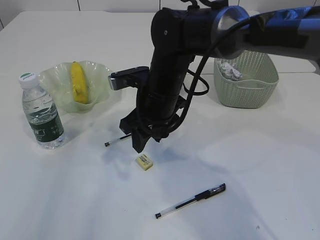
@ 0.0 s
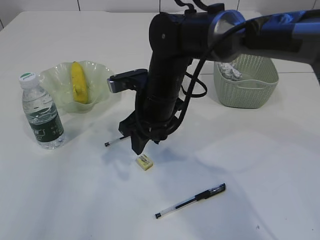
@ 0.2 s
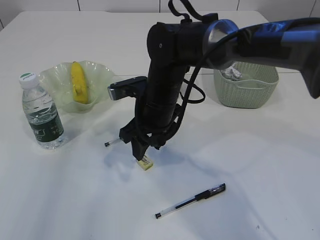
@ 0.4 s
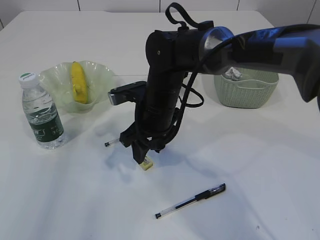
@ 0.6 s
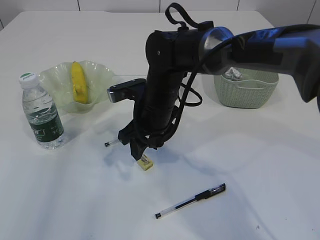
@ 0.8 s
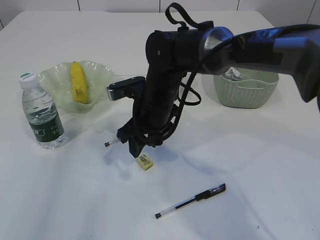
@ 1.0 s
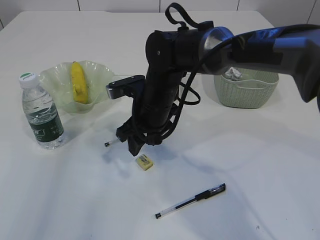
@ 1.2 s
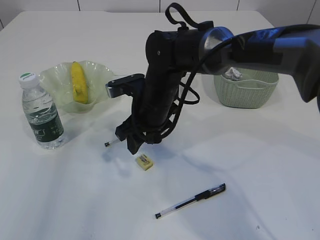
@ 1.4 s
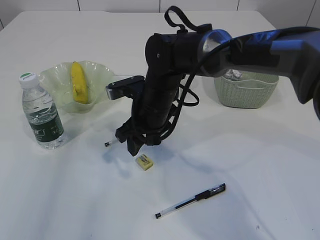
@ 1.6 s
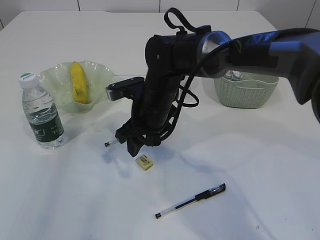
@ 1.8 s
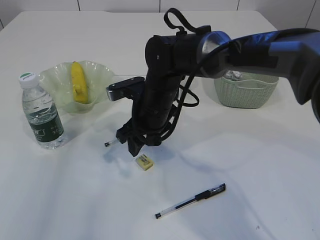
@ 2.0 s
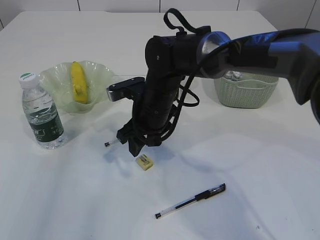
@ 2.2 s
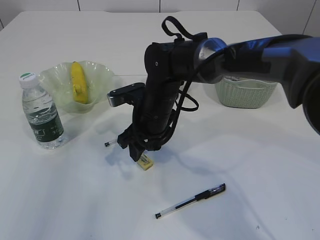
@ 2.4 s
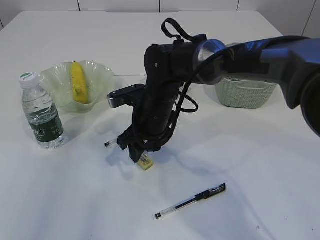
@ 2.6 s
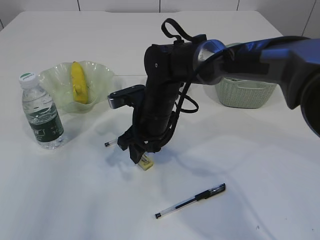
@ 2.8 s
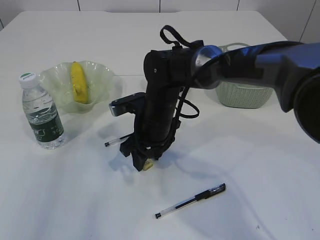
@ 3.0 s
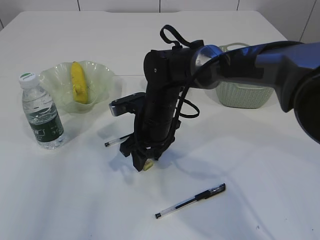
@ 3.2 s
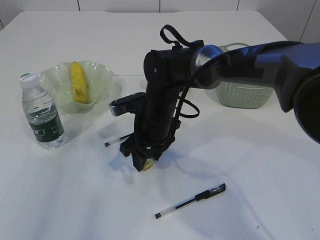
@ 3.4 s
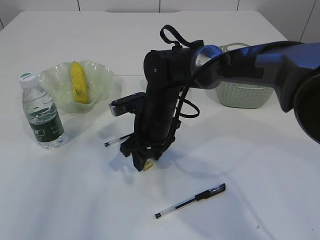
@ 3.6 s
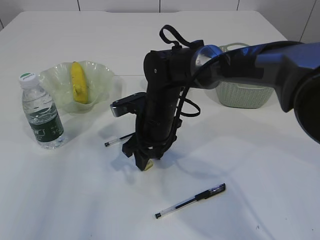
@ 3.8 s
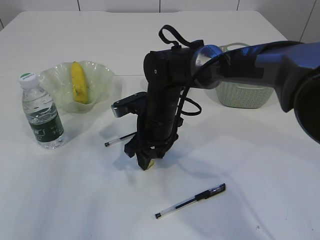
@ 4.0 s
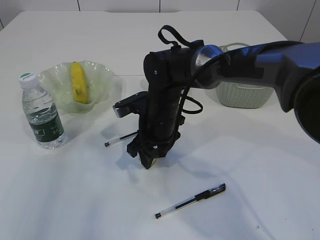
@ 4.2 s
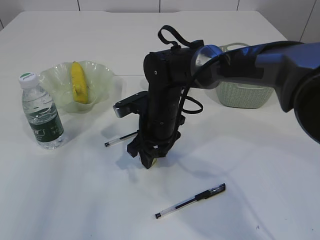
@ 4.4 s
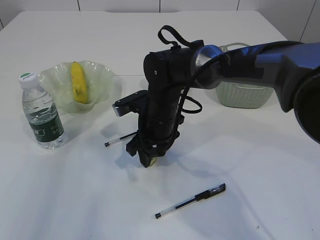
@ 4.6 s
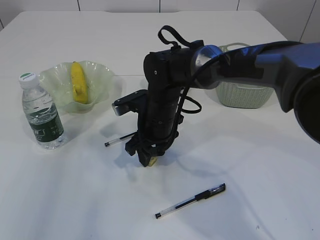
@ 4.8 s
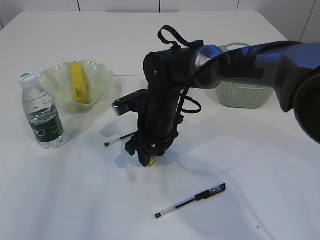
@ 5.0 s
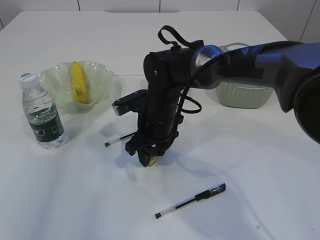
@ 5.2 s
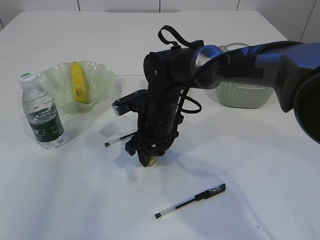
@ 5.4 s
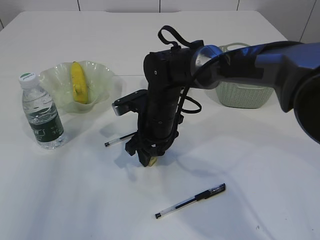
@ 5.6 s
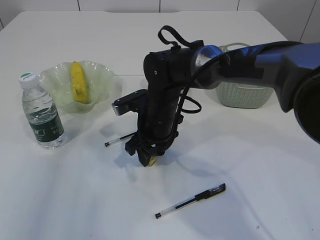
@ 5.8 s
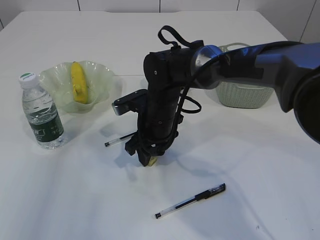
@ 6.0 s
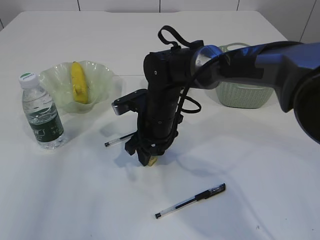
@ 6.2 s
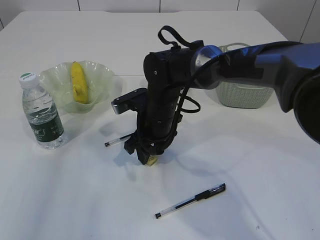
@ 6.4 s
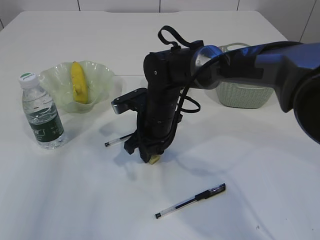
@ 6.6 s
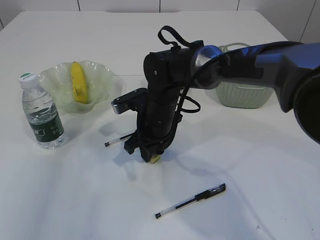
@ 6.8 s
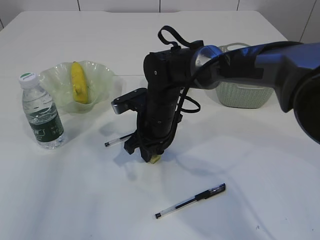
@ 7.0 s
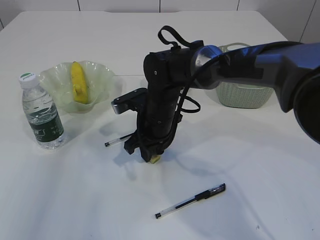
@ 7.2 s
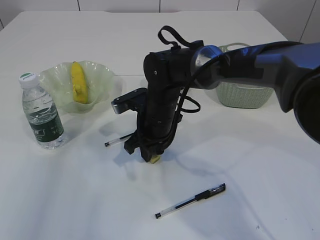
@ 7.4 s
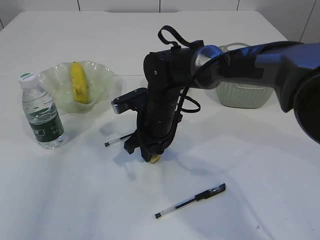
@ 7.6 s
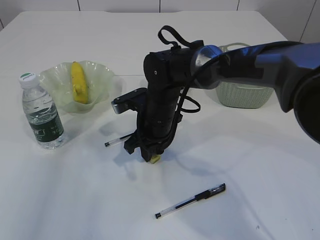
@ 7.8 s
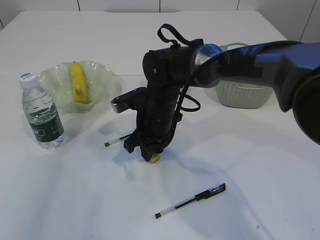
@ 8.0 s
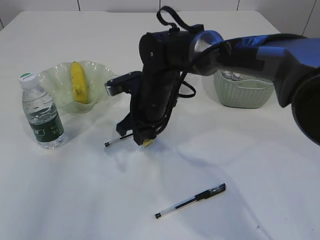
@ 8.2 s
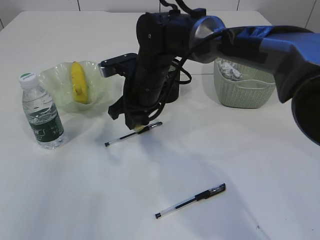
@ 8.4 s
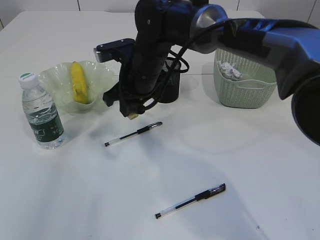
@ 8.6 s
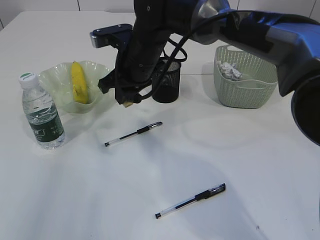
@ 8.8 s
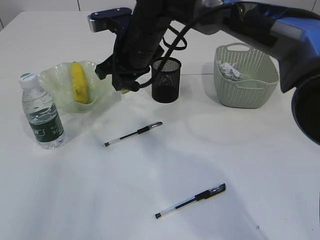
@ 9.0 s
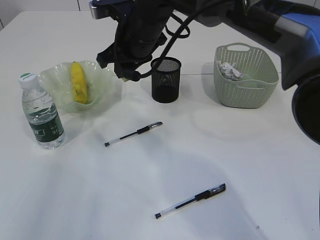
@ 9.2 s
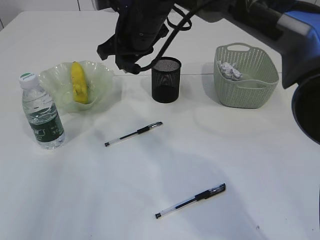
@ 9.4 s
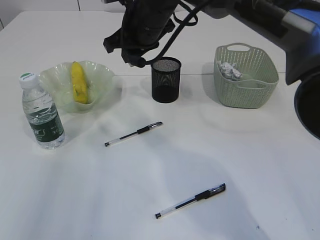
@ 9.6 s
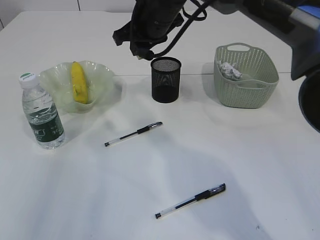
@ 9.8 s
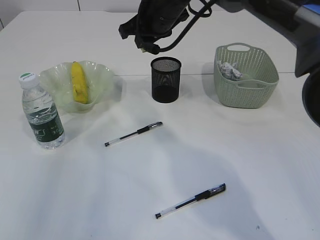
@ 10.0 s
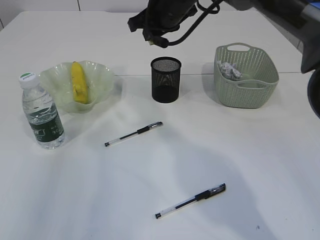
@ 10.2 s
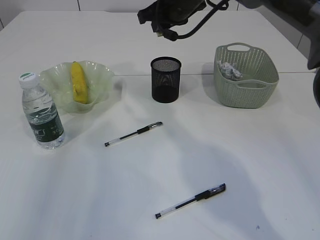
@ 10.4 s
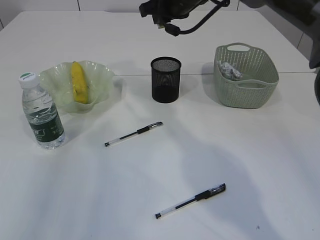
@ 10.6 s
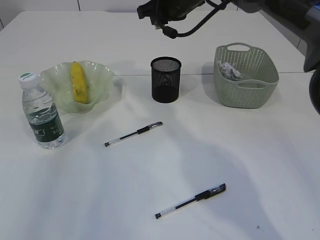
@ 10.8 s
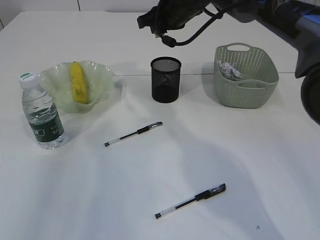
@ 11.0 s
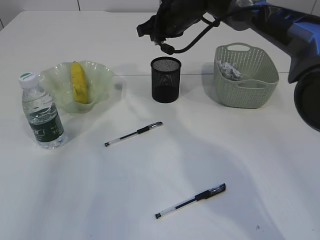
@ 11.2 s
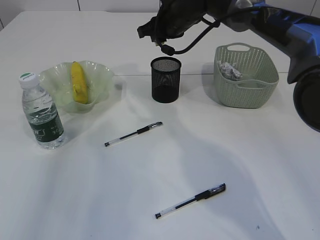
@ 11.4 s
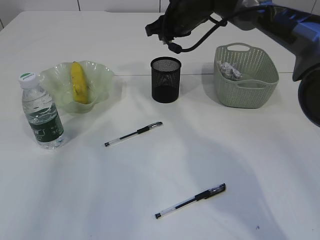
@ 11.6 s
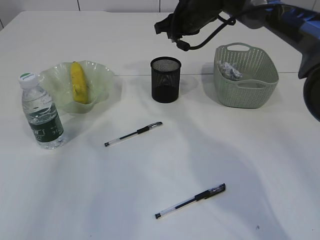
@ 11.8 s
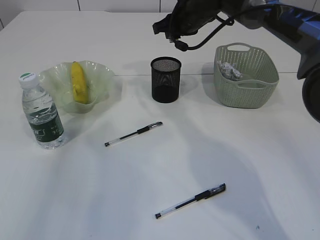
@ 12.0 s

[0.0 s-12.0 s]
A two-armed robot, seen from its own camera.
Step, 0.0 to 8.4 s: Pick up the eraser.
0.0 to 1.6 s: There are only small adjustments of the grippers.
1.6 to 6.0 s: The grippers make only small movements.
6.0 to 7.6 s: The right gripper closes its fingers.
7.6 to 9.0 s: The right gripper moves upward, roughly 10 cm.
9.0 to 10.4 s: The right gripper goes approximately 10 cm to the right, forward and upward.
10.4 to 12.0 s: The right gripper moves some 5 cm.

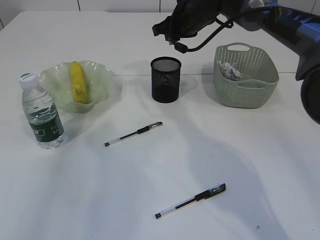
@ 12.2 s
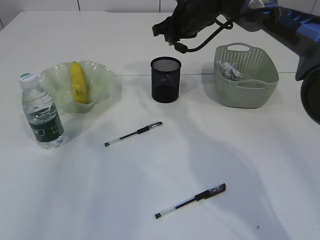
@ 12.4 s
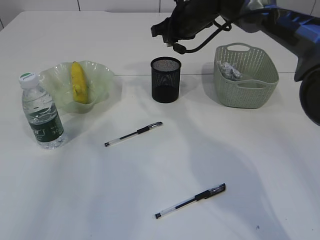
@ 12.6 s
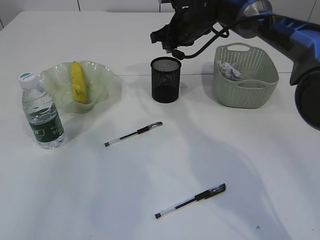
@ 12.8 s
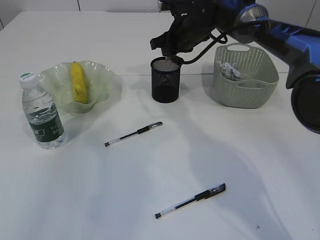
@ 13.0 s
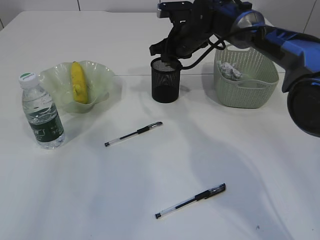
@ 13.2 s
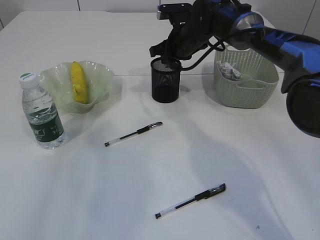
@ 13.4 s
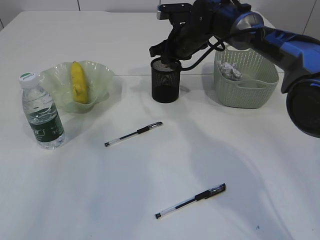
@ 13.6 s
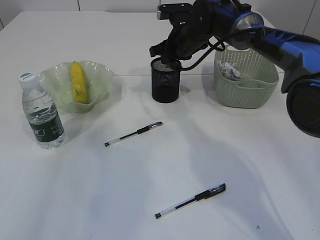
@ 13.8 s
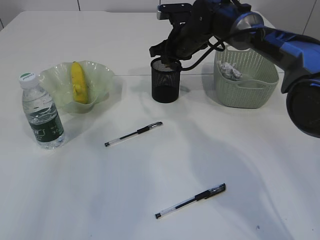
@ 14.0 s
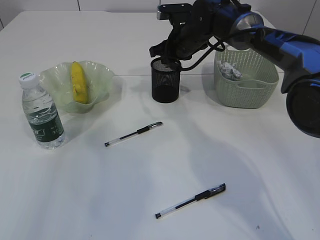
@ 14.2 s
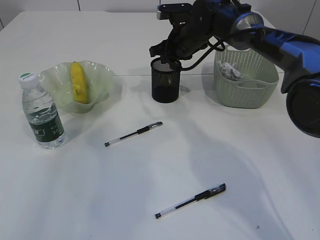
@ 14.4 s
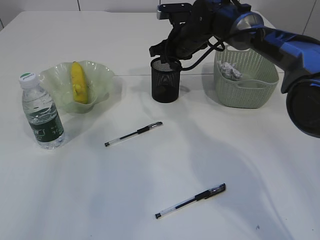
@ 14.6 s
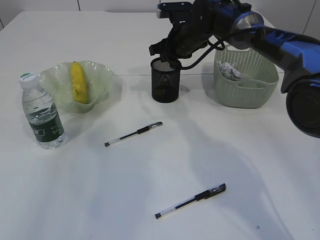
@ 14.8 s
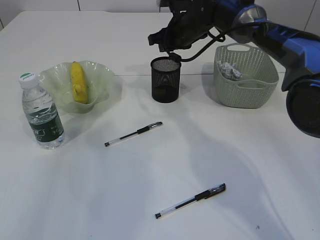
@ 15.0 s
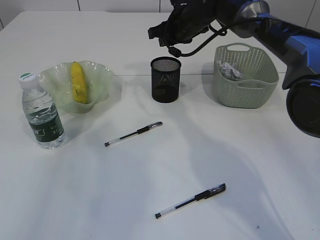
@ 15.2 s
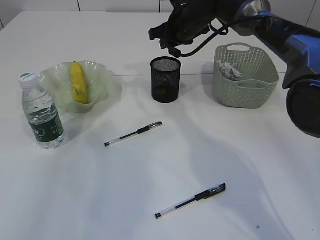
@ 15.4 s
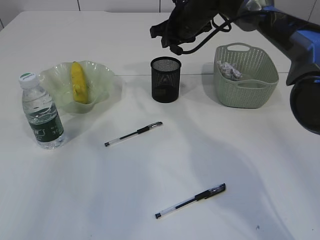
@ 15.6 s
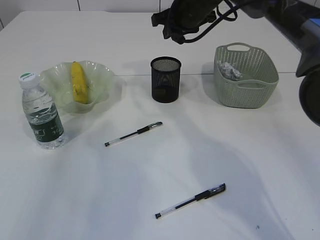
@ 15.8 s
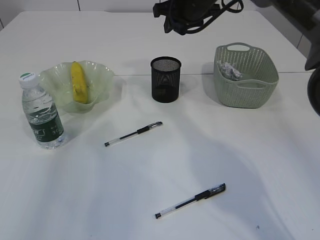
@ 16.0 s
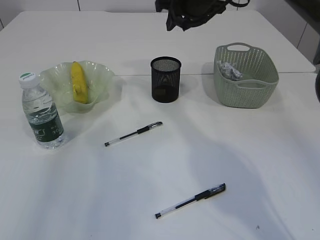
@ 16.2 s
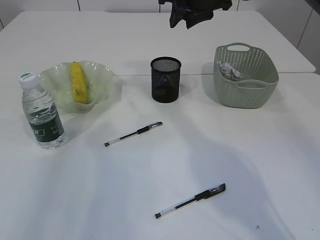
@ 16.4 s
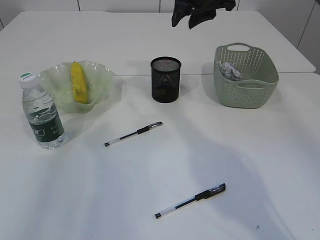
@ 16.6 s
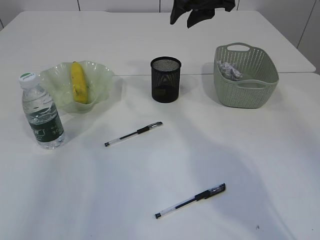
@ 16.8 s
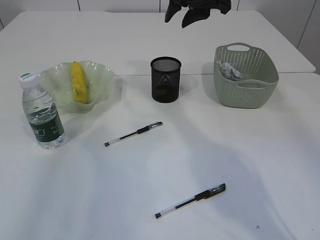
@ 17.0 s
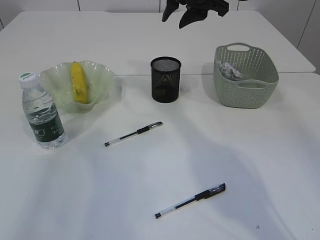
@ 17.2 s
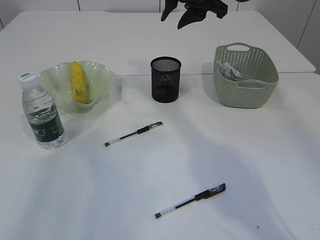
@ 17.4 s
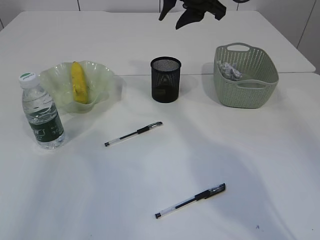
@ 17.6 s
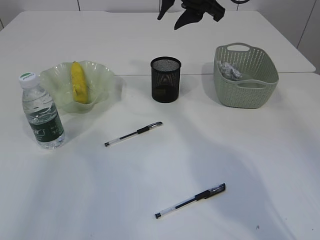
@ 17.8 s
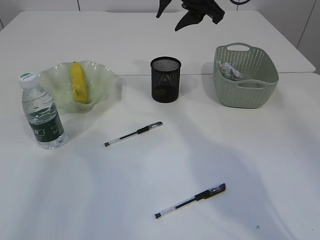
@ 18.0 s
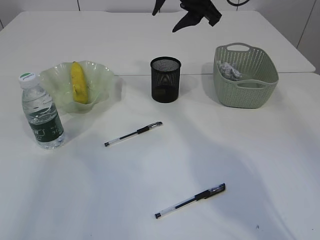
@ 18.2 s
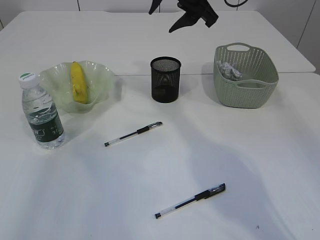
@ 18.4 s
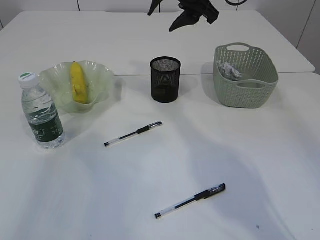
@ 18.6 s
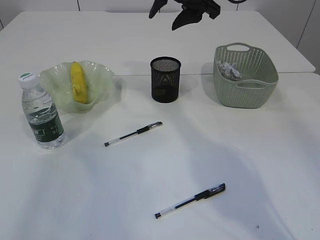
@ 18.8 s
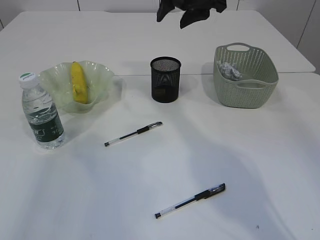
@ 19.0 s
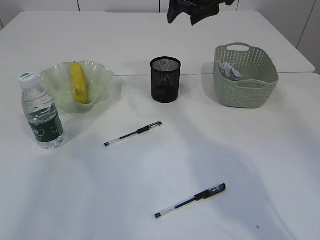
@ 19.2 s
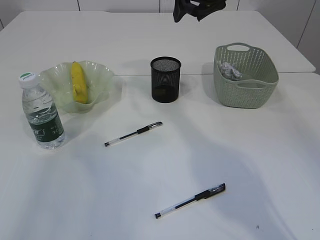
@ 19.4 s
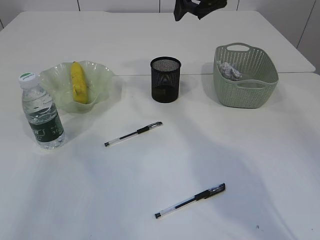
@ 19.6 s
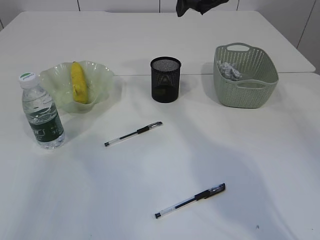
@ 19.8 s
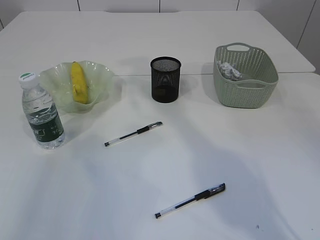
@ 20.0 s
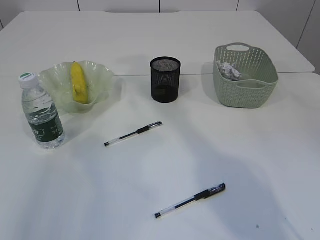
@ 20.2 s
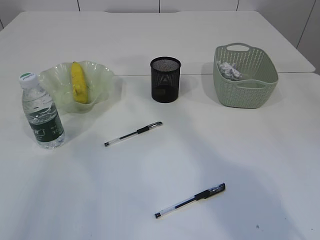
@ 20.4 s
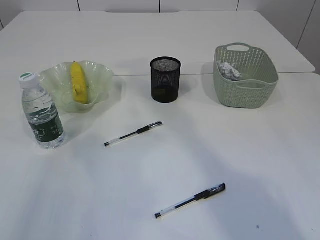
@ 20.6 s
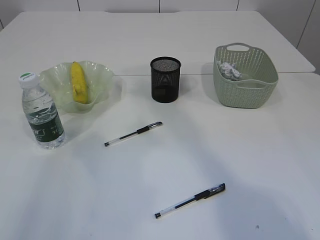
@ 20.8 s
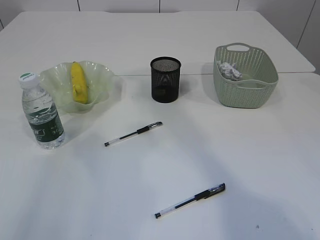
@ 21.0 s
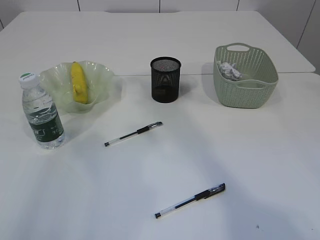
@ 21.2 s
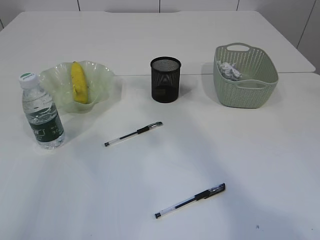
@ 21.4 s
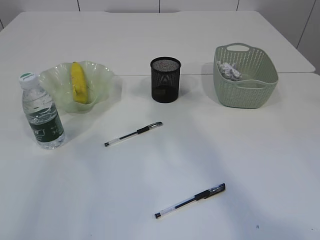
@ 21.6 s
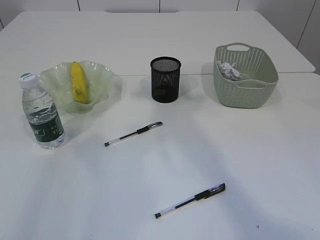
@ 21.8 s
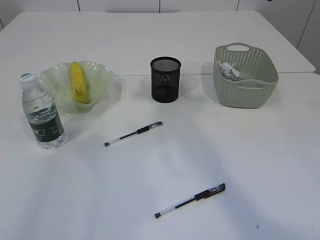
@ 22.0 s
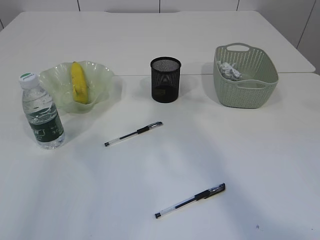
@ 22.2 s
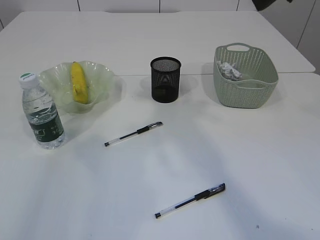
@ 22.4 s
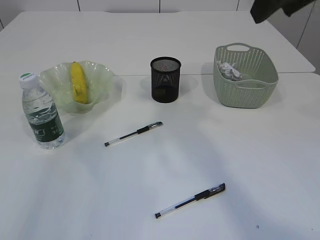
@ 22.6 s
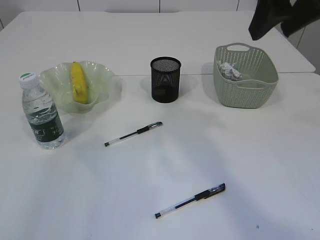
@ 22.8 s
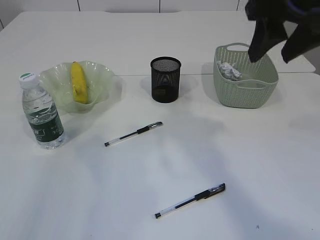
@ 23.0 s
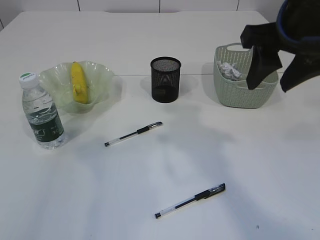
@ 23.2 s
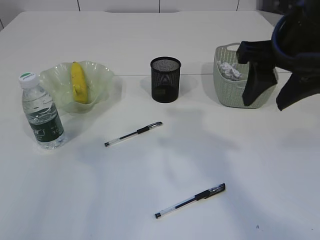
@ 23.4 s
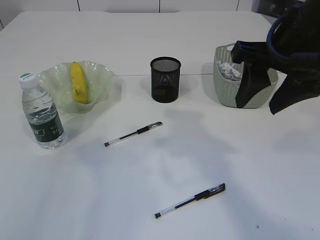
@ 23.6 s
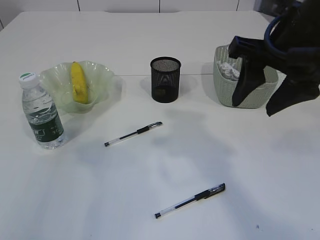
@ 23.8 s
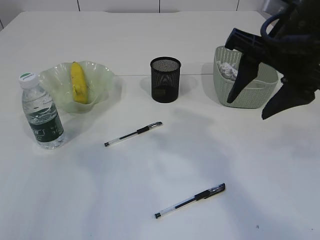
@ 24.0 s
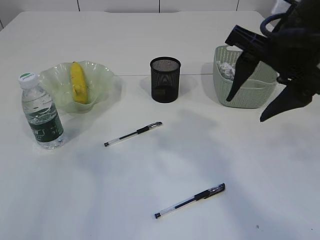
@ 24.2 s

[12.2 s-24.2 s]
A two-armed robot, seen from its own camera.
Step, 12.2 to 15.6 s: Place the eraser into the pen holder.
12.2 to 13.8 s: The right gripper goes some 5 cm downward.
13.8 to 15.2 s: The grippers make only small movements.
15.2 to 16.6 s: The right gripper shifts roughly 10 cm upward and backward.
19.8 to 21.2 s: The right gripper heads backward and upward, covering approximately 20 cm.
21.2 to 22.6 s: The right gripper travels downward by approximately 5 cm.
22.6 to 24.2 s: The right gripper travels downward by approximately 10 cm.
